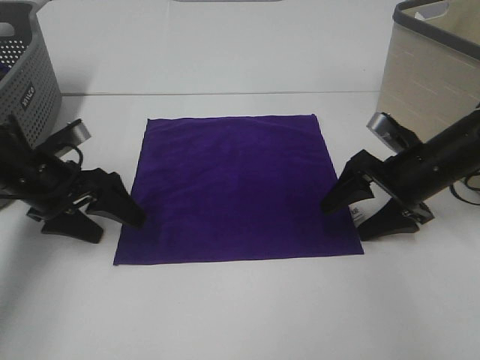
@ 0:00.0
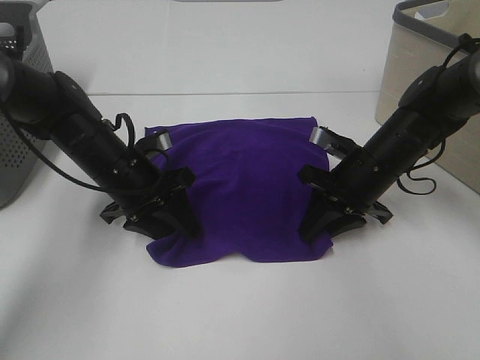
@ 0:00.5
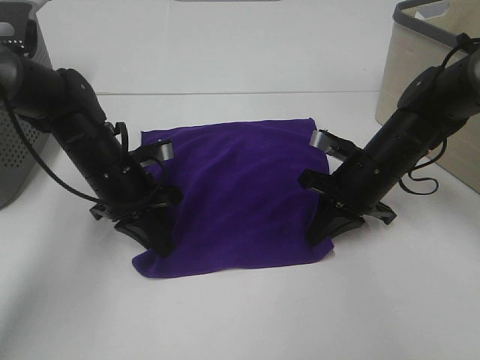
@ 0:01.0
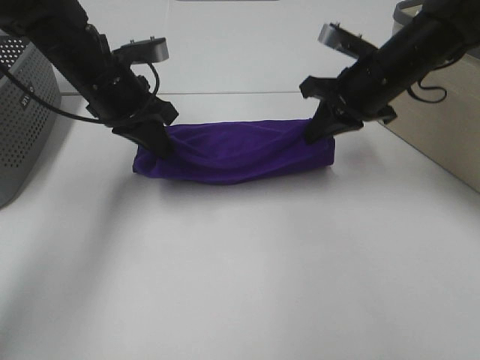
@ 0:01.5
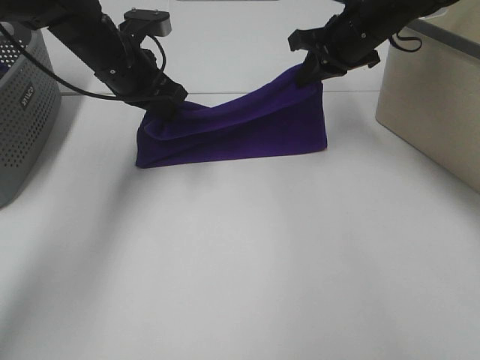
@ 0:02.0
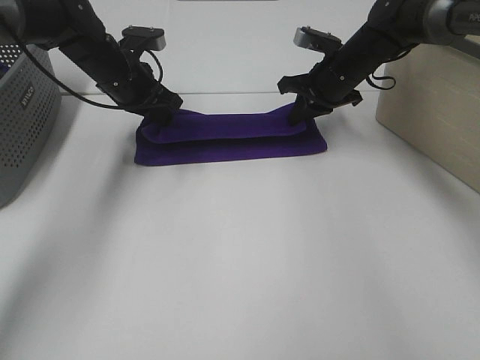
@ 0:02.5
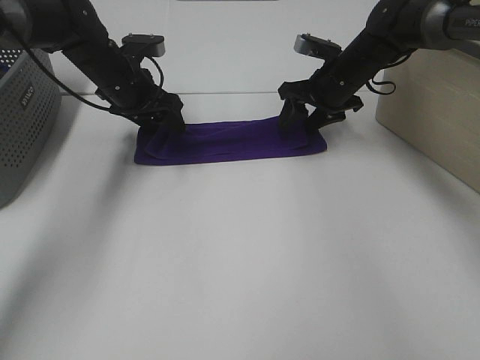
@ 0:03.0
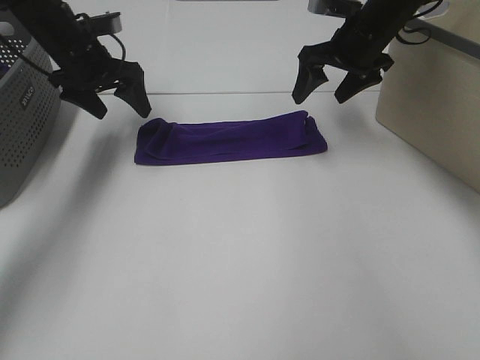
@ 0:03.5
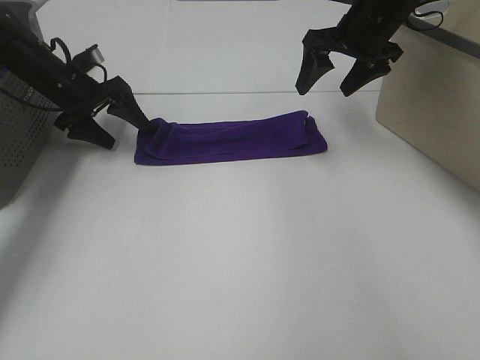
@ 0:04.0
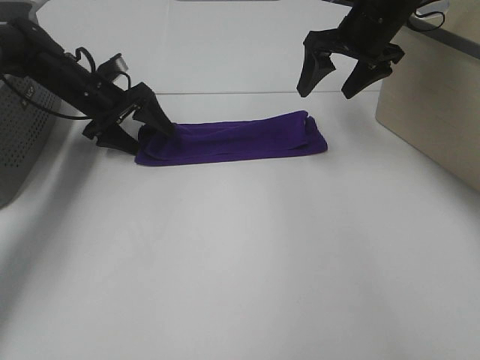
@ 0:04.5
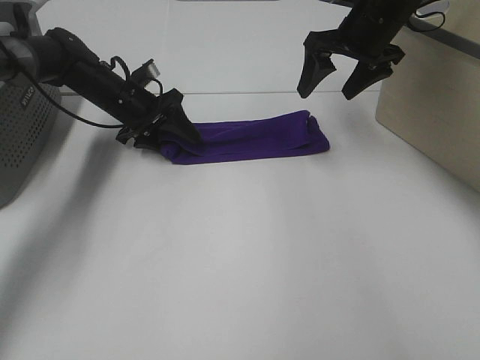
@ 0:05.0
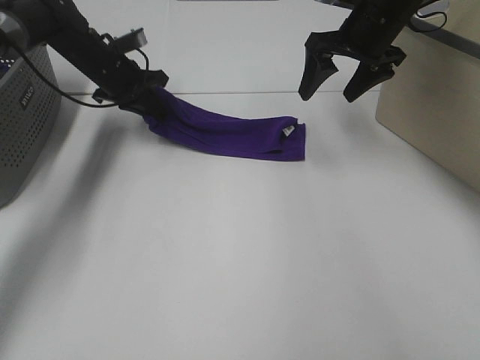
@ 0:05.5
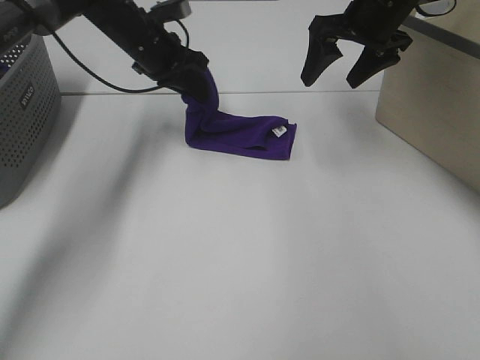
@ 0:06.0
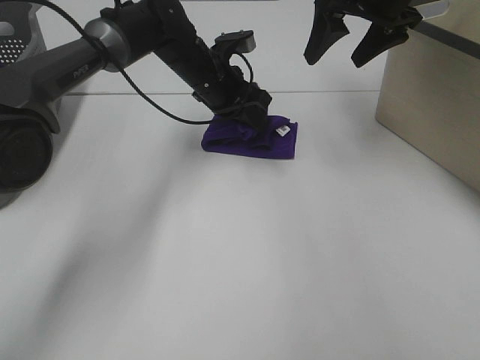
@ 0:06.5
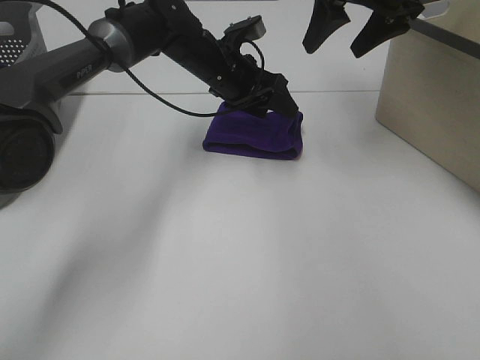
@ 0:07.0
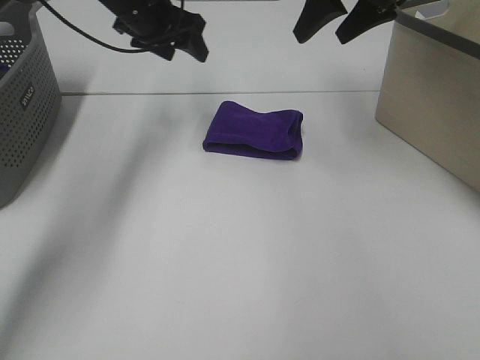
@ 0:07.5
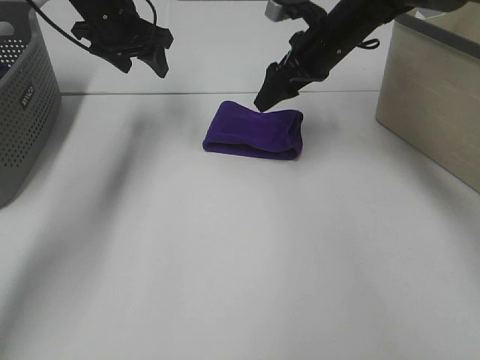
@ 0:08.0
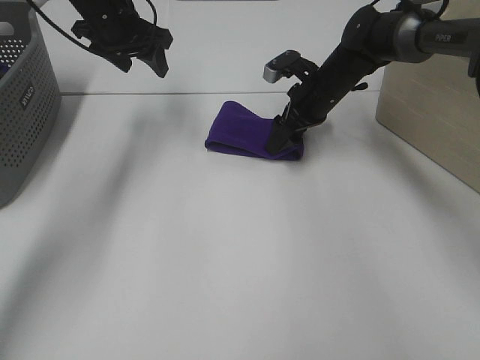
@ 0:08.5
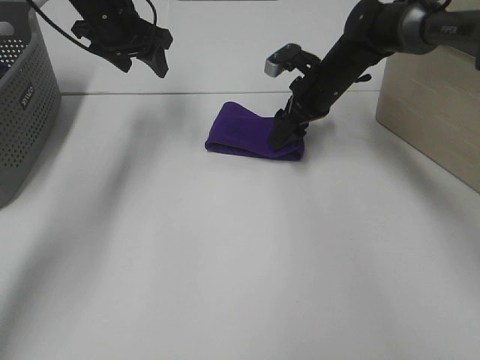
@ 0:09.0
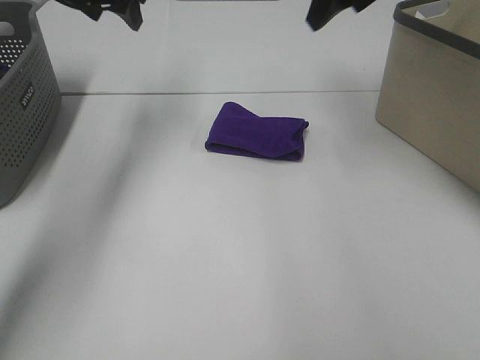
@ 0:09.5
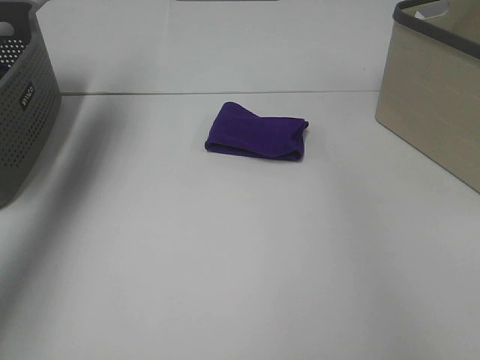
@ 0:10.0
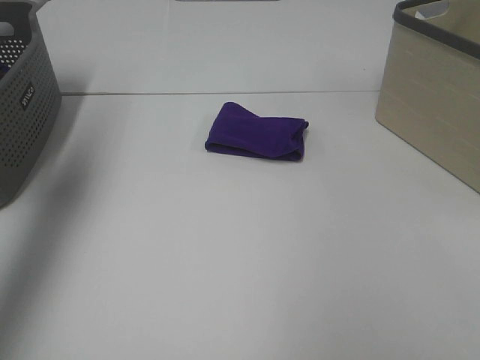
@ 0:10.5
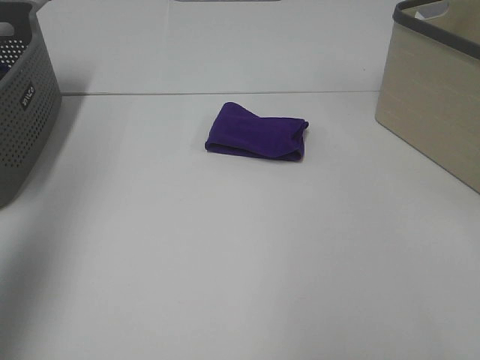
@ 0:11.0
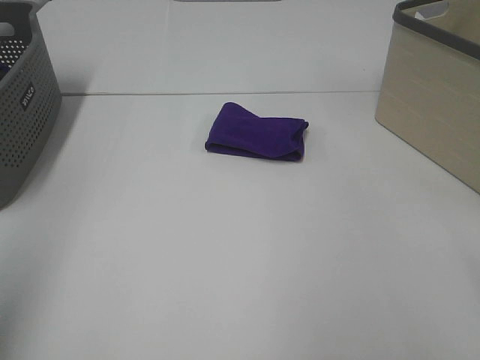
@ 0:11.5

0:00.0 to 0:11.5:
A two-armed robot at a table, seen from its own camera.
Task of the whole recording: Fold towels.
Step, 0:01.0 to 0:02.5: Left hand: fold the purple towel up.
Step, 0:01.0 to 0:02.5: Right hand: fold the purple towel up.
Step, 0:03.0 to 0:06.5: Left hand: fold the purple towel from left to right.
Step, 0:07.0 to 0:08.5: Right hand: adjust the purple towel.
0:00.0 to 0:02.0: The left gripper goes some 20 cm forward, to the right and upward, and closes its fingers, while the right gripper travels forward, upward and to the left by roughly 20 cm, and closes up.
0:02.0 to 0:04.0: The right gripper travels downward and back again, roughly 10 cm each way, and opens up. The left gripper heads to the left, downward and forward, covering approximately 15 cm, and opens.
0:04.0 to 0:06.0: The left gripper is displaced to the right and upward by approximately 15 cm, and closes up.
0:06.0 to 0:07.5: The left gripper goes approximately 5 cm upward, moves approximately 10 cm to the right and comes back, and opens up.
0:07.5 to 0:09.5: The right gripper travels downward and back again, about 20 cm each way, while the left gripper heads upward and to the left, covering about 10 cm.
0:09.5 to 0:11.5: Both grippers move backward, roughly 40 cm.

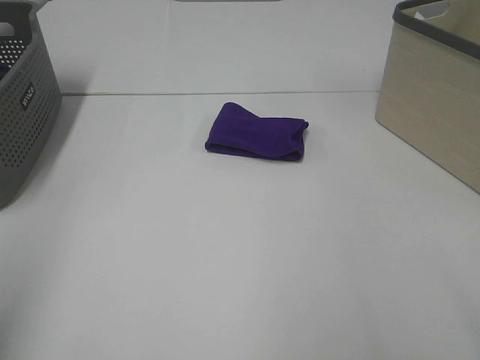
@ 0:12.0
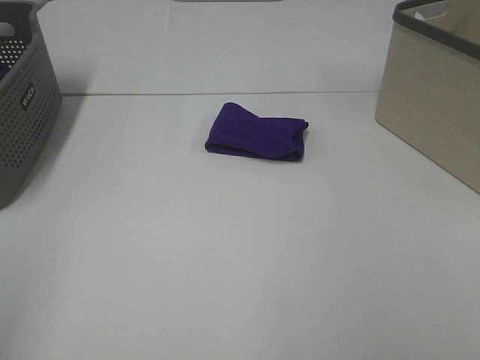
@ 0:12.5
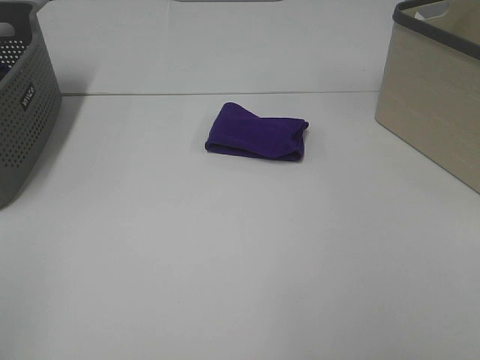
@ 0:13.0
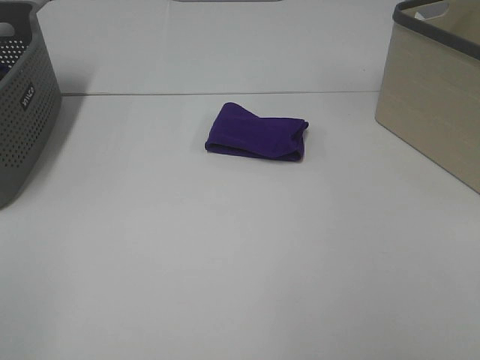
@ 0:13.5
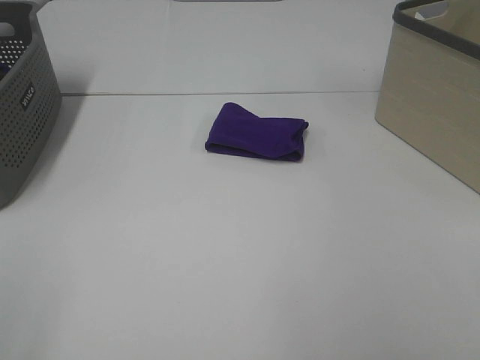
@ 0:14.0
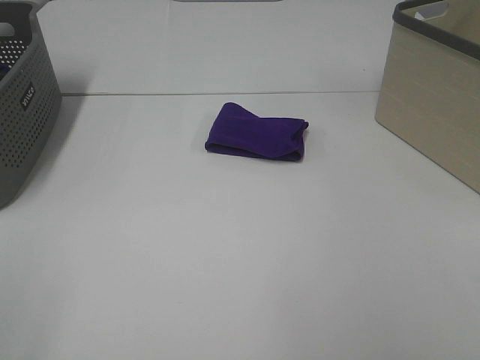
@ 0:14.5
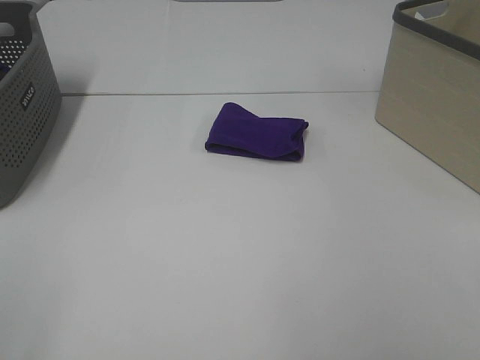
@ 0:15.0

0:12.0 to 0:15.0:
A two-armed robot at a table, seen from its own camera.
Task of the whole recording: Fold towels.
0:13.5 to 0:15.0: Both grippers stay about where they are.

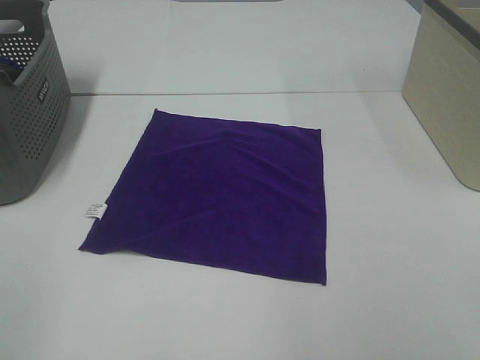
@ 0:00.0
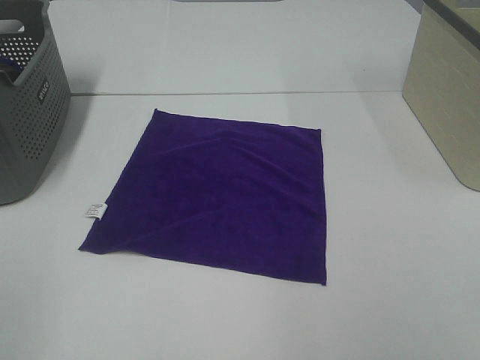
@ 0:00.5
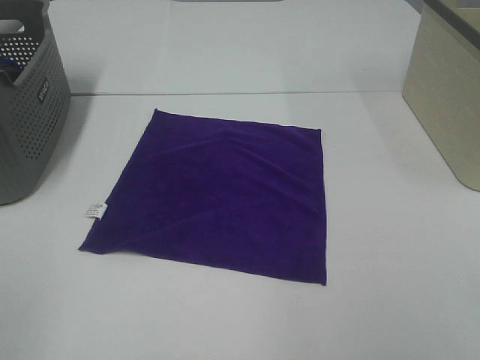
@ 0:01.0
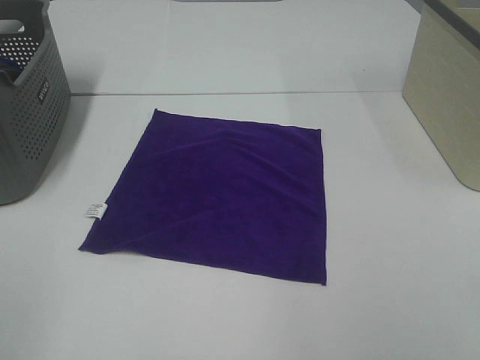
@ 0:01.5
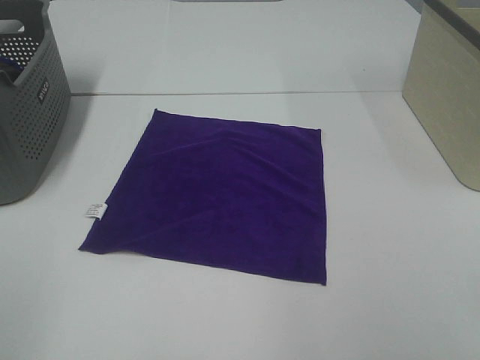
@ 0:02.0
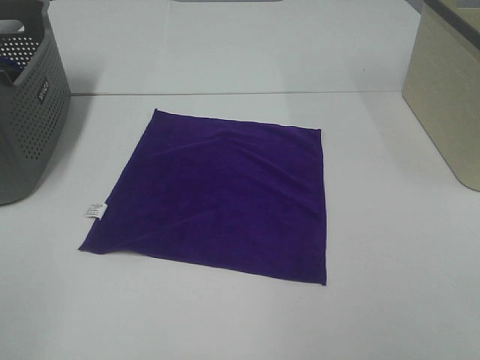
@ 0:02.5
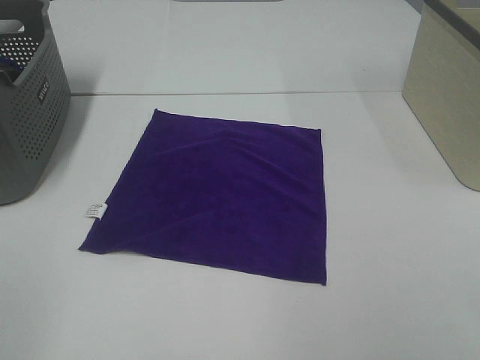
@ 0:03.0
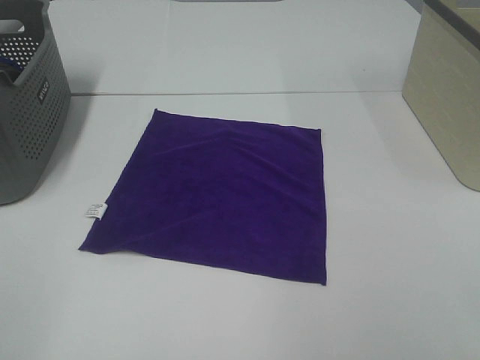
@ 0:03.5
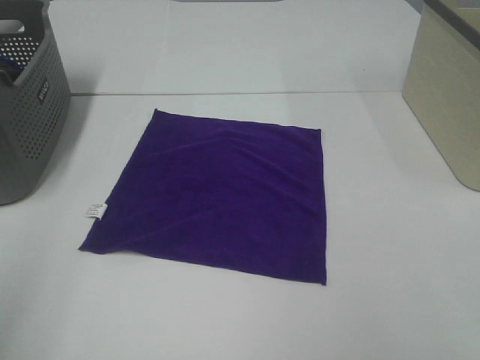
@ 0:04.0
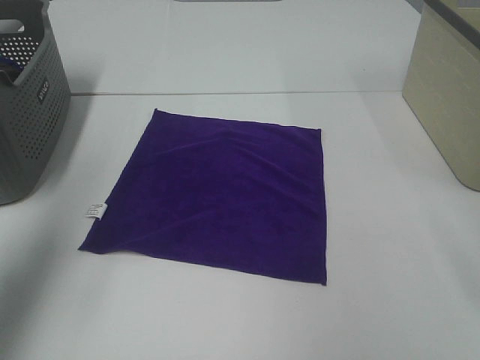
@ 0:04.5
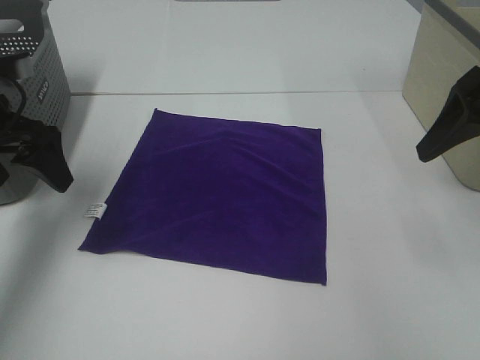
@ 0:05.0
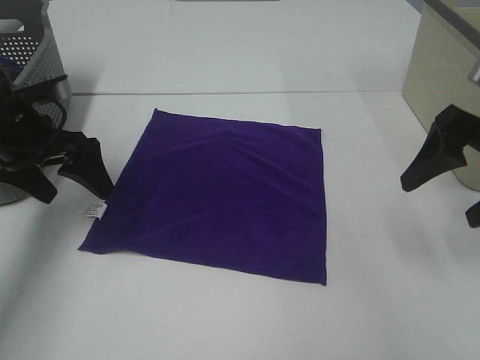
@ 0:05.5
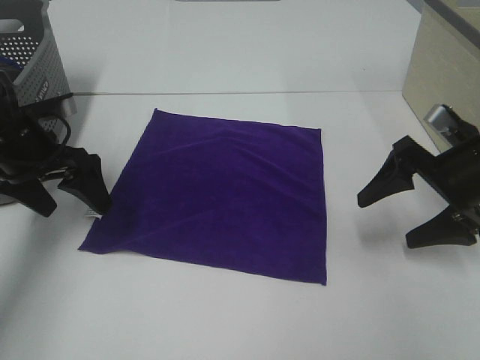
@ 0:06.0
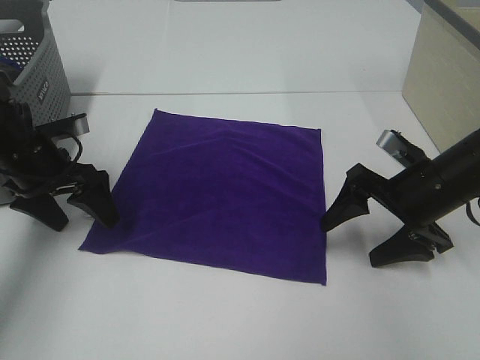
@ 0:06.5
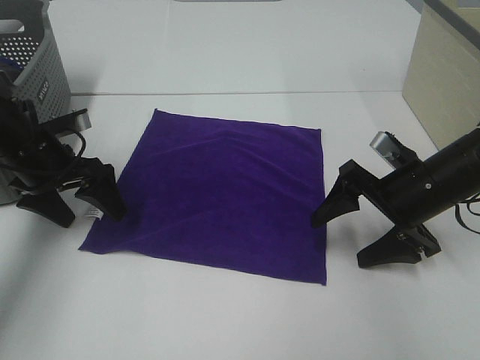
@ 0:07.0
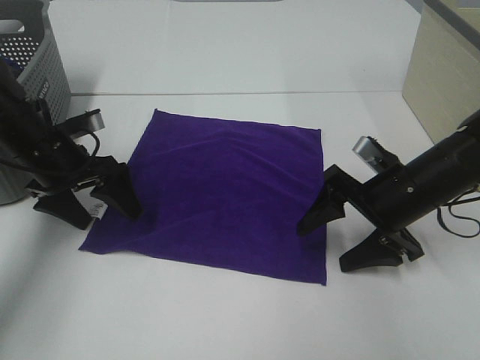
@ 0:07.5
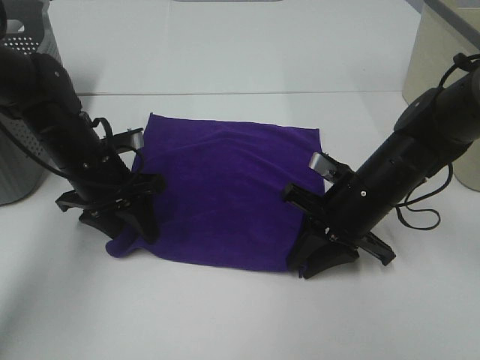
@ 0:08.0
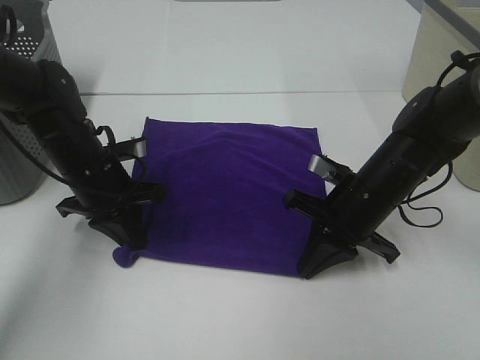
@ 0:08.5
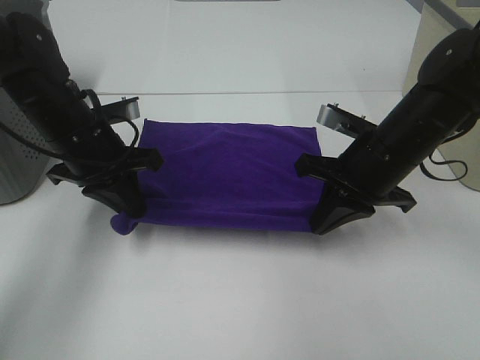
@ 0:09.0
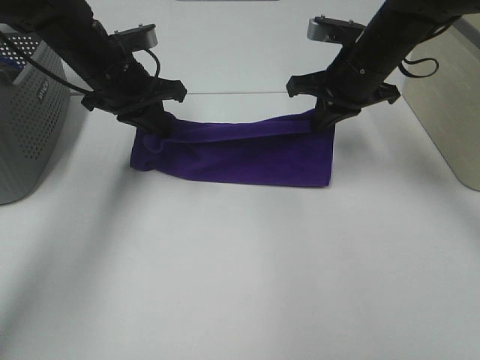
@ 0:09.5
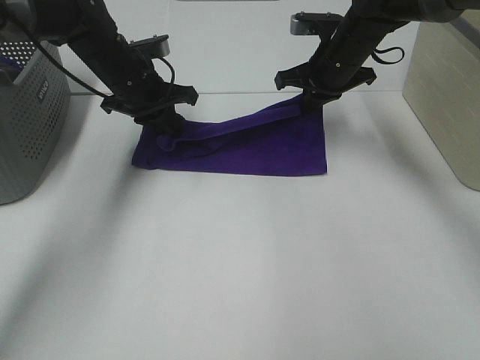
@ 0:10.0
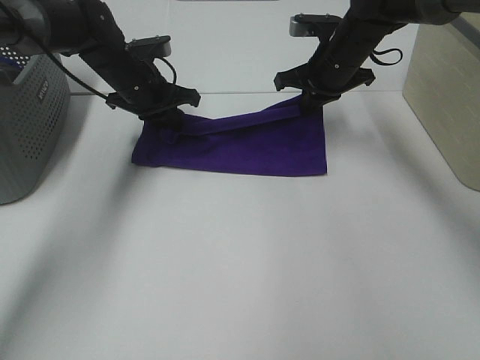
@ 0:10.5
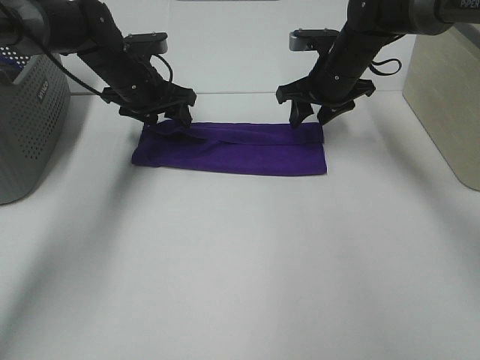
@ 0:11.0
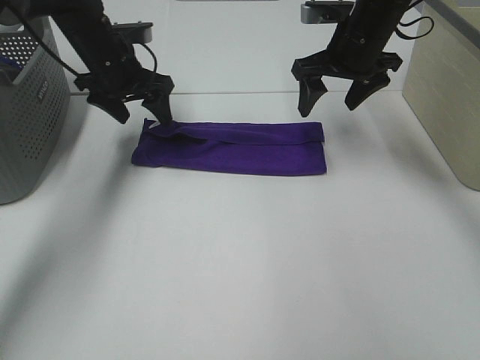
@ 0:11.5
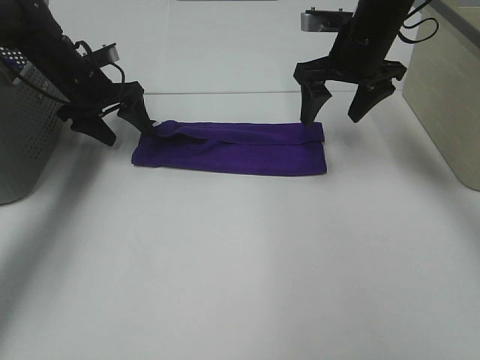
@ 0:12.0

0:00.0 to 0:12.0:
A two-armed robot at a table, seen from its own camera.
Task of the whole recording: Fold towels.
Step, 0:00.0 to 0:08.5: Left hand: grab the bottom left corner of purple towel.
Step, 0:00.0 to 0:08.5: Right hand: grab the bottom right corner of purple towel.
Step, 0:09.0 to 0:10.5: Left hand: fold the purple towel up.
Step, 0:09.0 to 0:10.5: Right hand: fold the purple towel up.
0:00.0 to 0:02.0: Both grippers stay put.
0:04.0 to 0:06.0: The grippers both shift forward and downward by about 30 cm.
0:06.0 to 0:08.0: The right gripper moves to the left and downward, approximately 15 cm, and closes its fingers. The left gripper heads to the right and downward, covering approximately 10 cm, and closes up.
0:08.0 to 0:10.0: Both grippers travel together forward and upward, approximately 15 cm. The left gripper closes its fingers.
0:10.0 to 0:12.0: The right gripper shifts by about 5 cm, and opens; the left gripper heads to the left, covering about 10 cm, and opens.
